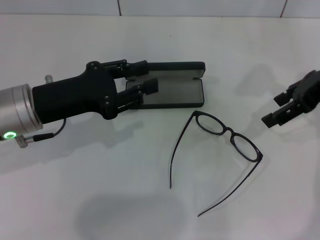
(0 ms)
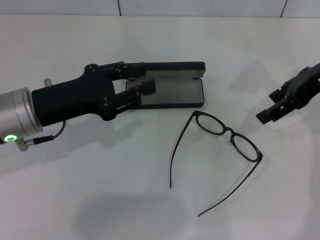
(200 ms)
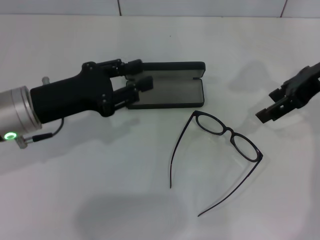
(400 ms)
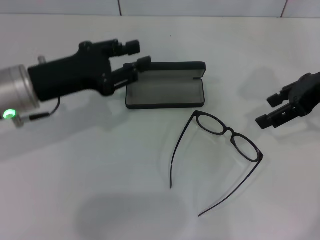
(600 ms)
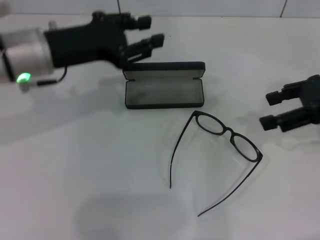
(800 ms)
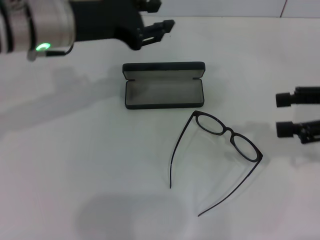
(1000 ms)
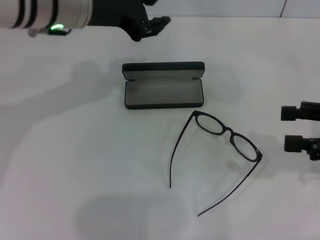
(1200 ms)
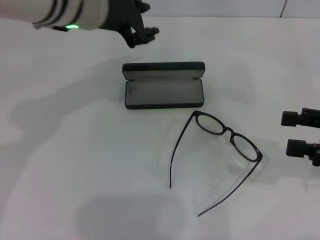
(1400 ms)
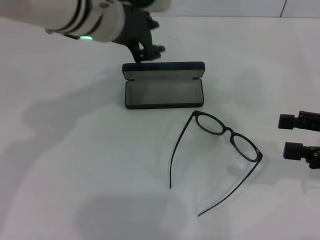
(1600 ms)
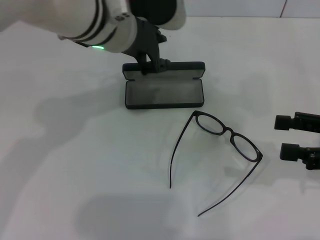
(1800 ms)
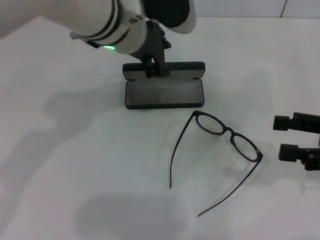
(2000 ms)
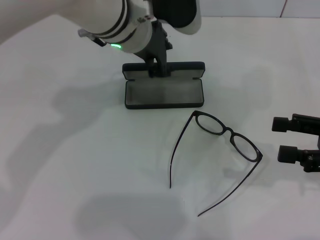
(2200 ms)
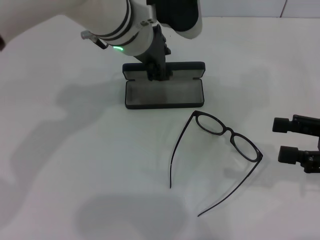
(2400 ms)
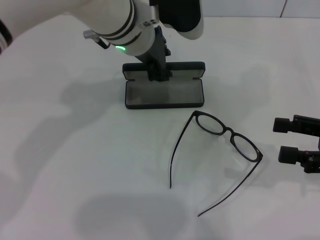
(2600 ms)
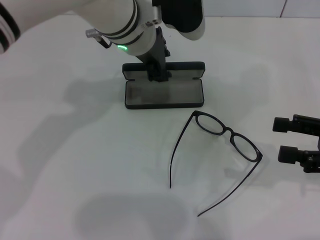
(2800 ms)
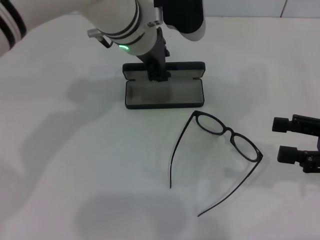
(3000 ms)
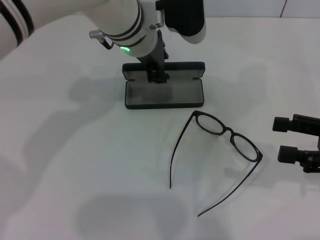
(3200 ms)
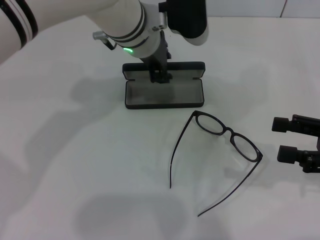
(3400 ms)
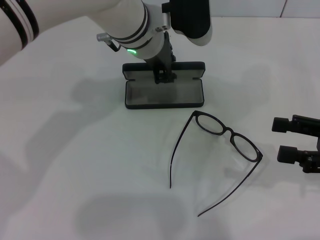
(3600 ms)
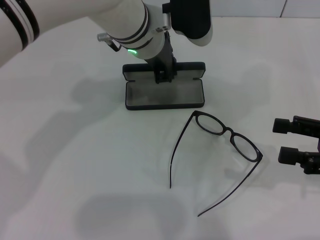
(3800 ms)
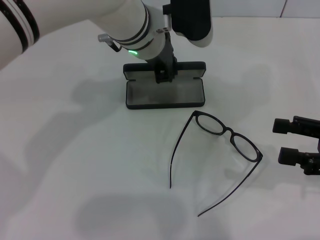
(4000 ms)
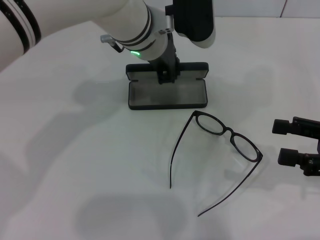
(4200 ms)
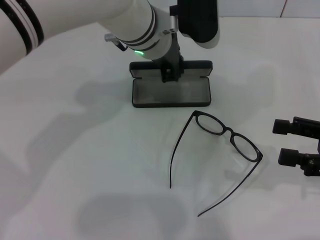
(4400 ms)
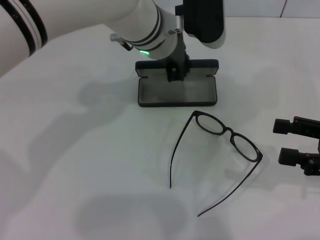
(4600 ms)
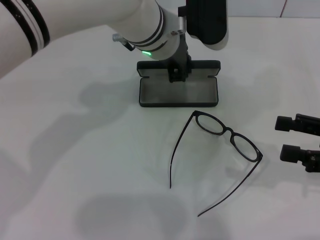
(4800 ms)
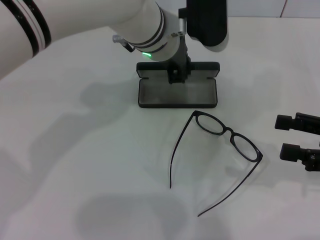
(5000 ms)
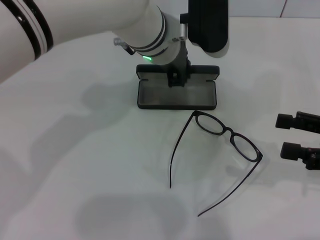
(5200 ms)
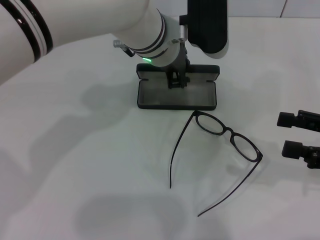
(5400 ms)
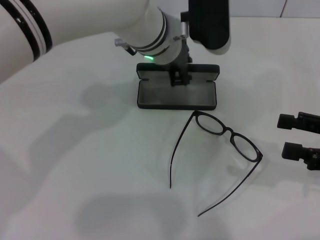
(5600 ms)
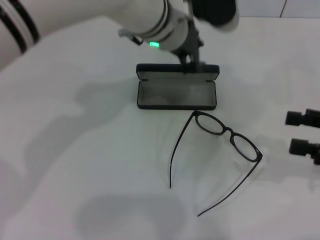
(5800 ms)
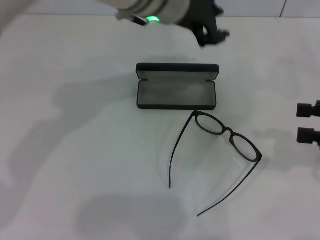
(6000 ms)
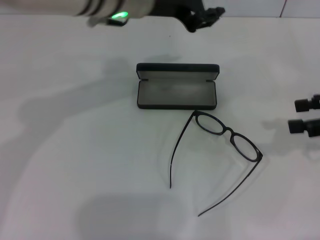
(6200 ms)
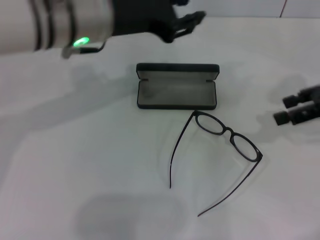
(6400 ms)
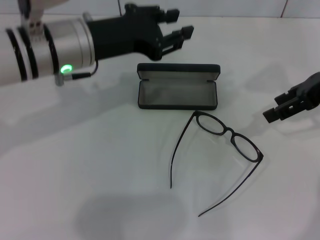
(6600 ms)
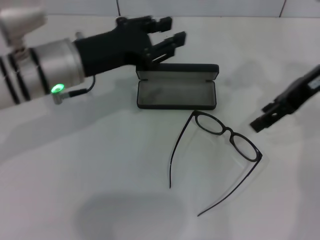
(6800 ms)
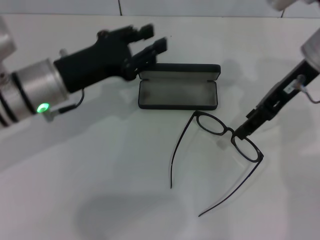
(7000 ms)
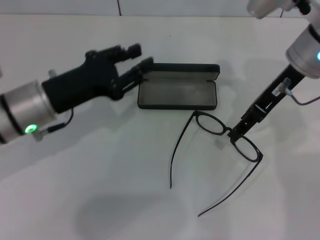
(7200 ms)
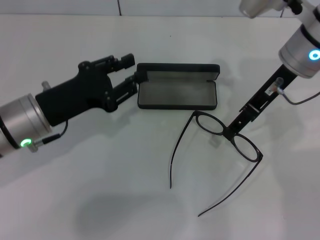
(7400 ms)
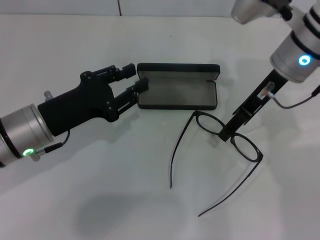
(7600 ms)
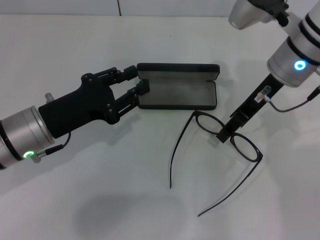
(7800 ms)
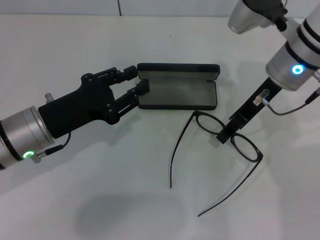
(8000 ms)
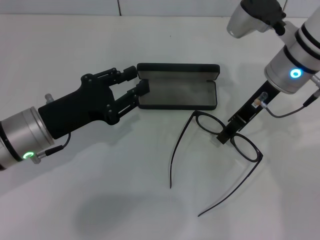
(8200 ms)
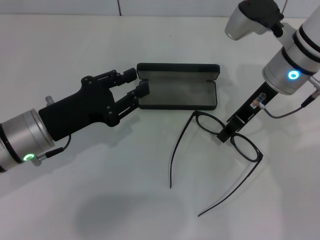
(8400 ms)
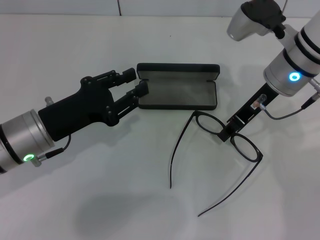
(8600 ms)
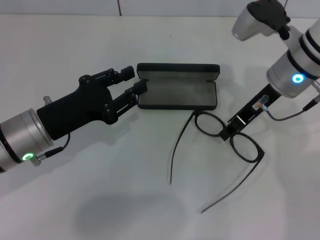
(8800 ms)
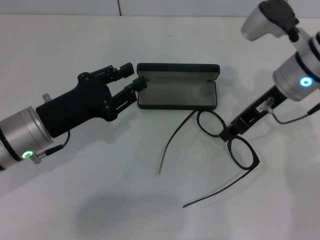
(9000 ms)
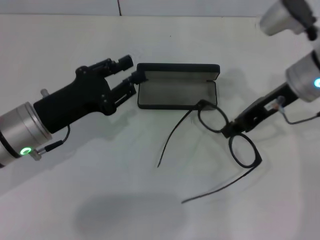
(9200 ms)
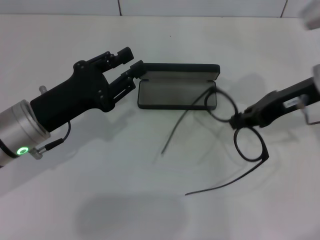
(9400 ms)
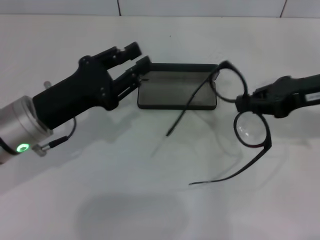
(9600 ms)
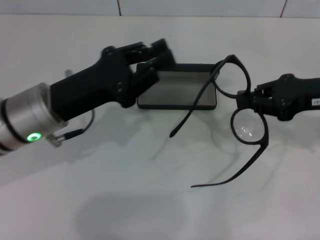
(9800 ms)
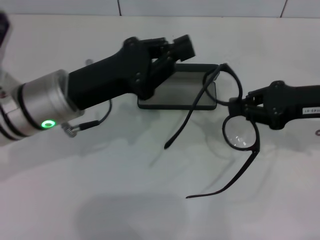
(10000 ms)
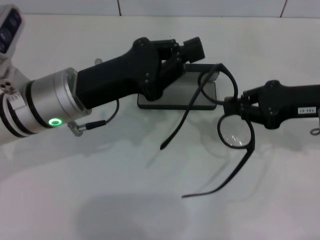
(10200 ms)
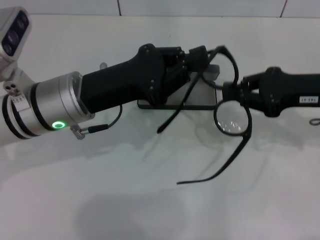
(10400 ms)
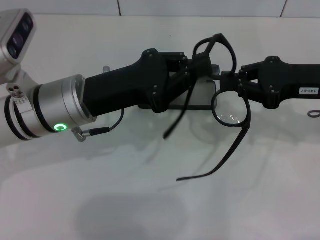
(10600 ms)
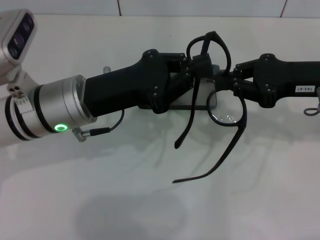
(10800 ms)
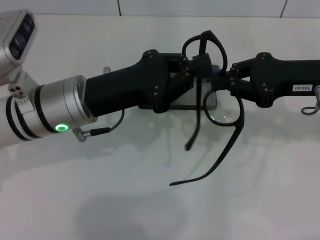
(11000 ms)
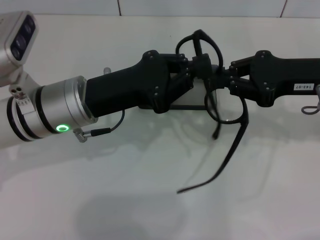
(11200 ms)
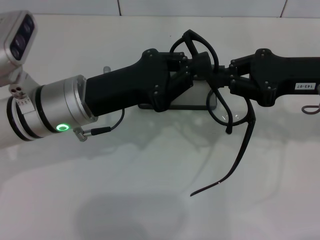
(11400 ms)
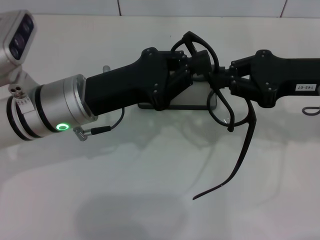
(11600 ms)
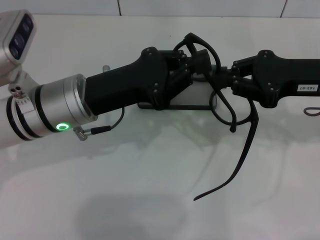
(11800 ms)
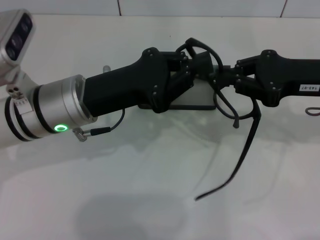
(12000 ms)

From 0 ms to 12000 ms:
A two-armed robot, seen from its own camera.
Step, from 0 ms to 3600 ms: Grab the glasses case with your left hand.
Step, from 3800 ms to 5200 ms: Place the glasses case in the center of the table with your left hand.
Step, from 5600 ms to 8600 ms: Grab the eyeglass frame with your right hand.
From 0 ms to 1600 ms: The right gripper moves backward, downward and to the right, about 15 cm; the left gripper travels to the right, upward and forward by roughly 20 cm.
From 1600 ms to 3000 ms: The left gripper ends up approximately 10 cm from where it was.
From 3000 ms to 4400 ms: The grippers move only a little.
From 4400 ms to 6000 ms: The left gripper shifts some 5 cm upward.
From 6000 ms to 7600 ms: The right gripper goes approximately 25 cm to the left and forward, while the left gripper heads to the left, downward and backward, covering about 25 cm.
From 7600 ms to 9000 ms: The right gripper closes its fingers.
From 9000 ms to 10400 ms: The left gripper moves to the right and upward, some 10 cm, and closes its fingers. Meanwhile the right gripper moves to the right and backward, approximately 10 cm.
From 10400 ms to 12000 ms: The grippers move only a little.

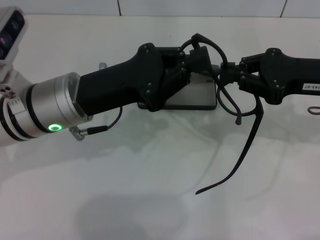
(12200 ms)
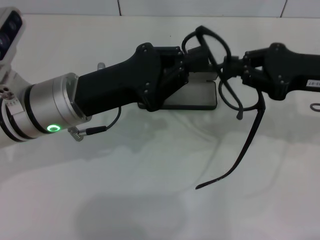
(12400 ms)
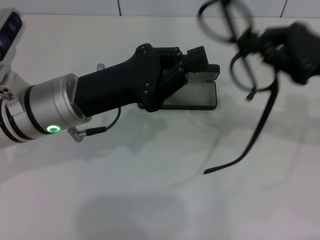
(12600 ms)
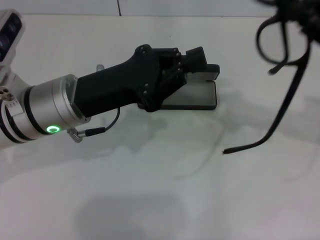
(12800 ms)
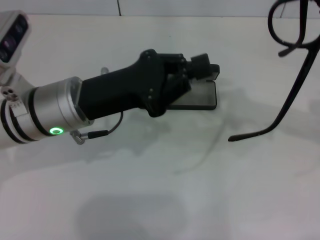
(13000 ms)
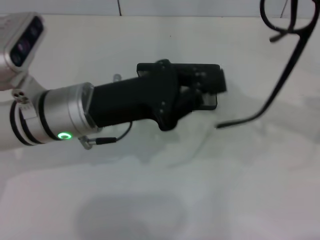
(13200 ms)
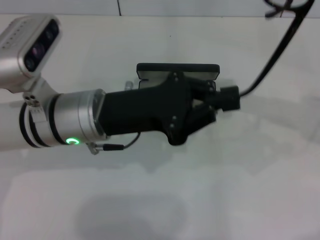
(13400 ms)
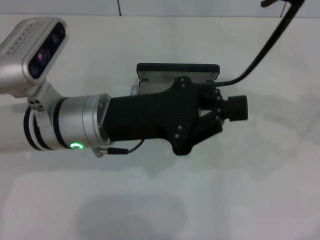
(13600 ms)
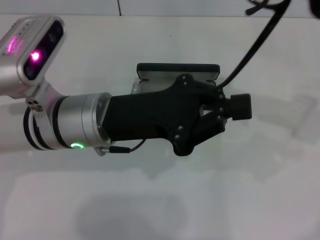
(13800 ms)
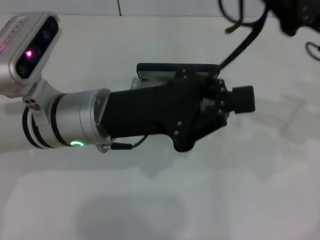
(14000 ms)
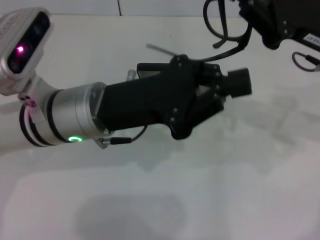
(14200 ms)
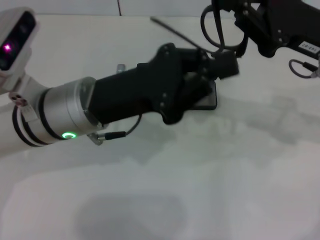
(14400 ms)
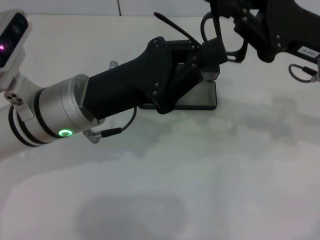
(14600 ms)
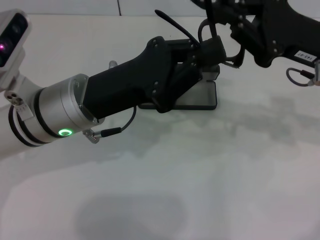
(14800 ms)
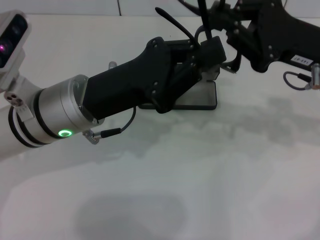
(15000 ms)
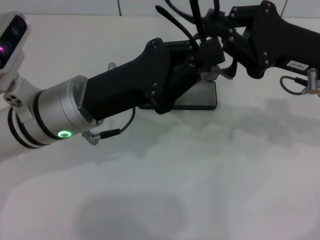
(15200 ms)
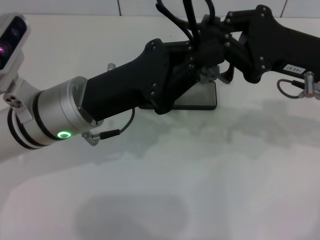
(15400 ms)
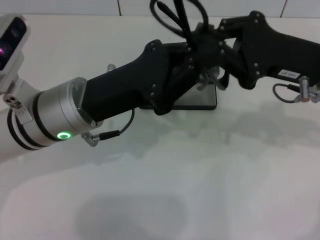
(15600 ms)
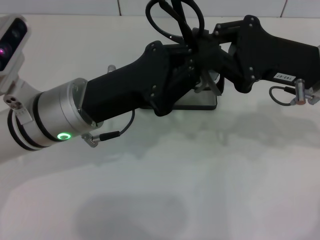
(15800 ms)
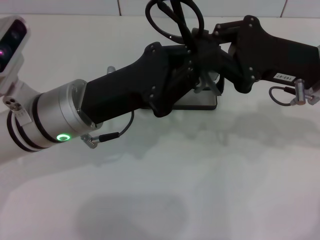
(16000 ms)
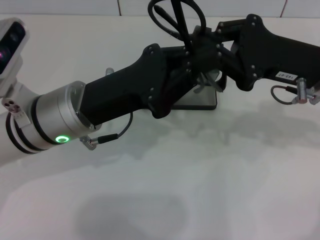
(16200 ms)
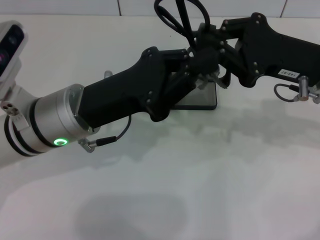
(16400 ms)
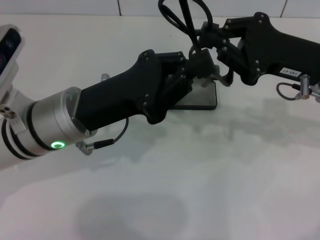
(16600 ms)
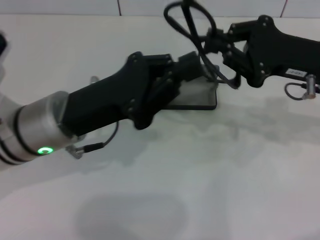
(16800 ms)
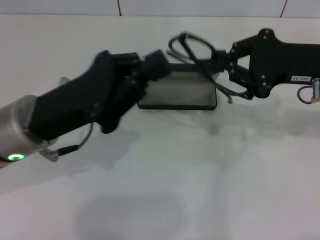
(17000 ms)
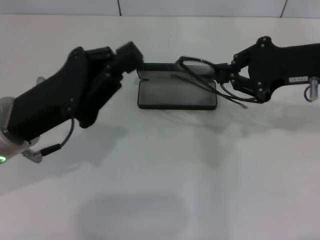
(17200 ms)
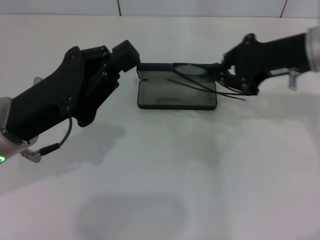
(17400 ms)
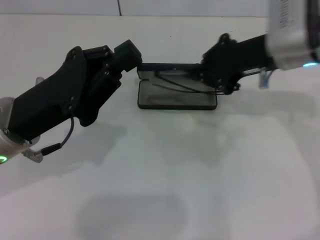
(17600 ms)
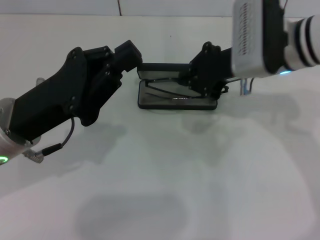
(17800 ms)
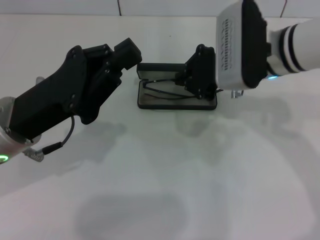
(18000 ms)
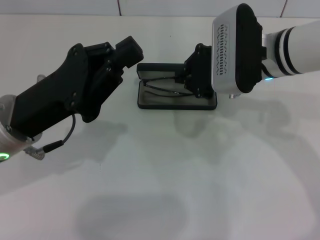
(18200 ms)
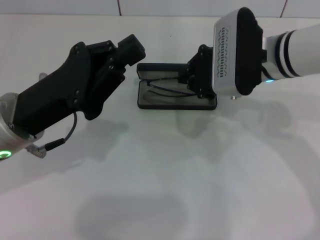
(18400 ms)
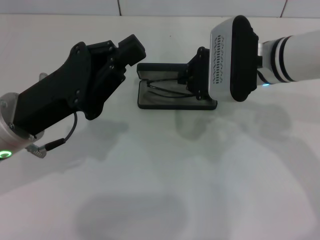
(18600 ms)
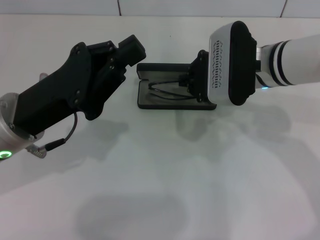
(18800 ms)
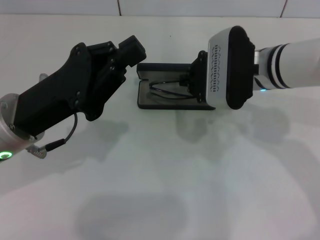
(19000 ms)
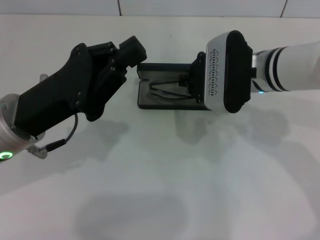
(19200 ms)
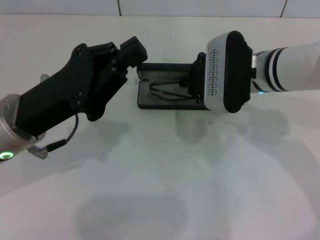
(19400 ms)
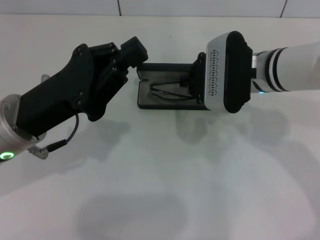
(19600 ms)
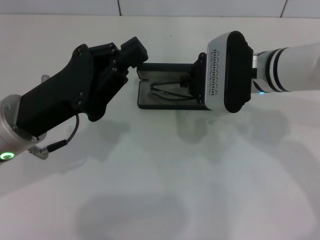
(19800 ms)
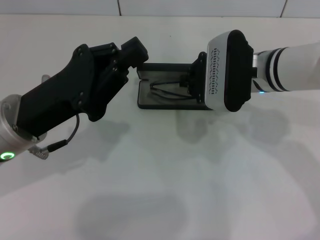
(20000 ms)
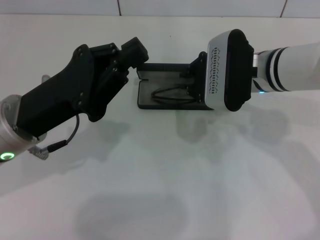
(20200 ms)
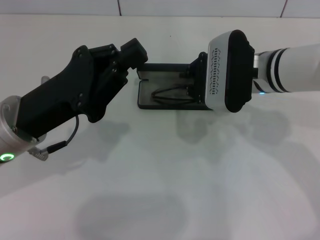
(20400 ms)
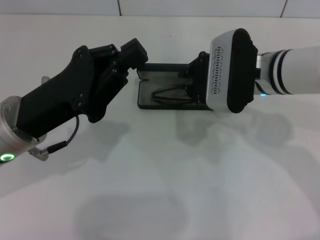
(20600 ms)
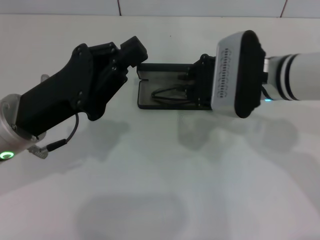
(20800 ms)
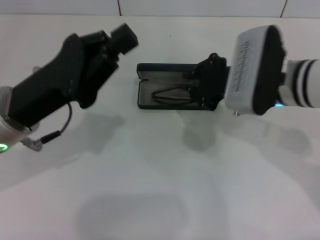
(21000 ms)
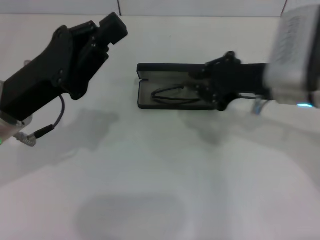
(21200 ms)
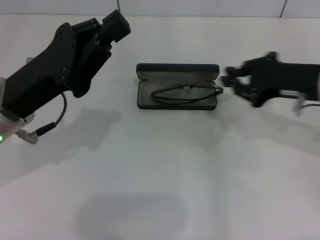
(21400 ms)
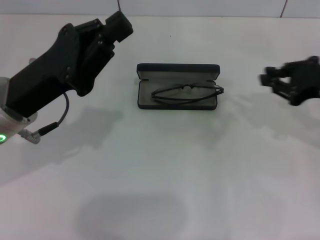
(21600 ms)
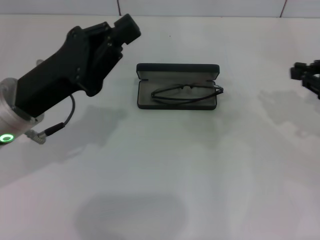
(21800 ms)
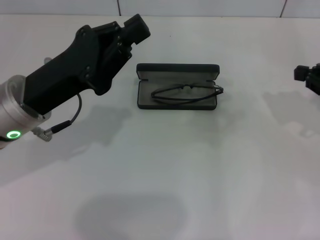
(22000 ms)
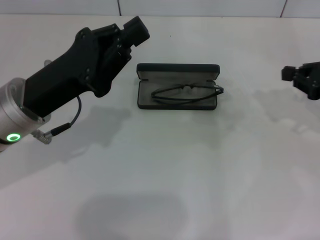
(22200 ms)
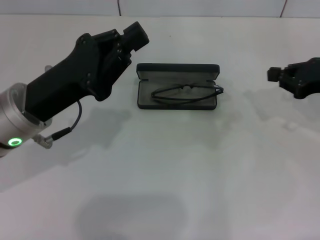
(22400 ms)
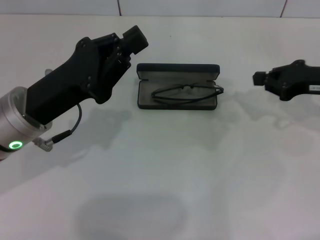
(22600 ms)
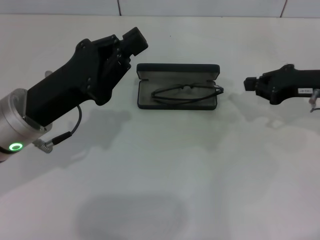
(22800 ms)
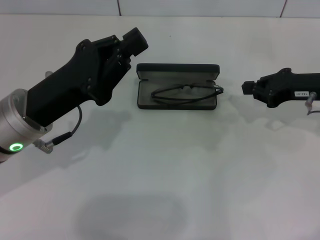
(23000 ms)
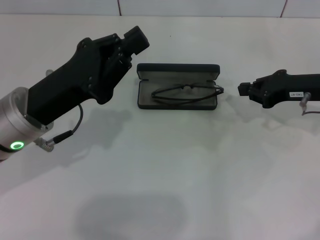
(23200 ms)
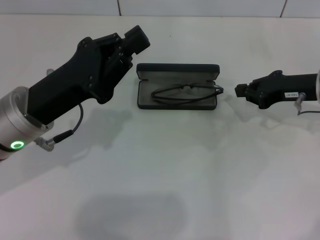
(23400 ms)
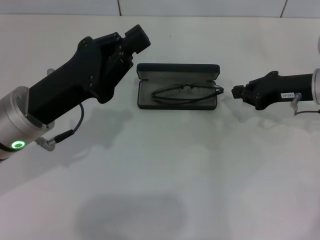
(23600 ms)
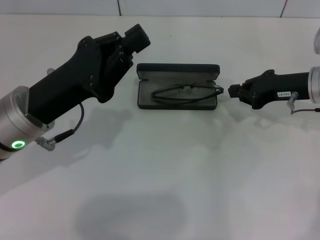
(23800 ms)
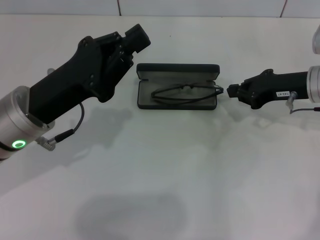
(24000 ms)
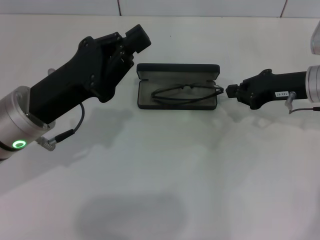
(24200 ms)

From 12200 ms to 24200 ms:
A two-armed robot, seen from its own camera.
Step, from 12200 ms to 16400 ms: Fold the frame with your left hand.
From 13800 ms to 15200 ms: The right gripper shifts by about 5 cm.
From 15200 ms to 16600 ms: The grippers move only a little.
From 16600 ms to 18200 ms: The right gripper is displaced to the left by roughly 10 cm. Meanwhile the left gripper goes approximately 5 cm to the left.
From 18200 ms to 19800 ms: The grippers make only small movements.
From 19800 ms to 21200 ms: The right gripper is displaced backward by about 5 cm.
From 21200 ms to 22600 ms: The right gripper is displaced to the right by some 10 cm.
From 22600 ms to 24200 ms: The right gripper ends up about 5 cm from where it was.
